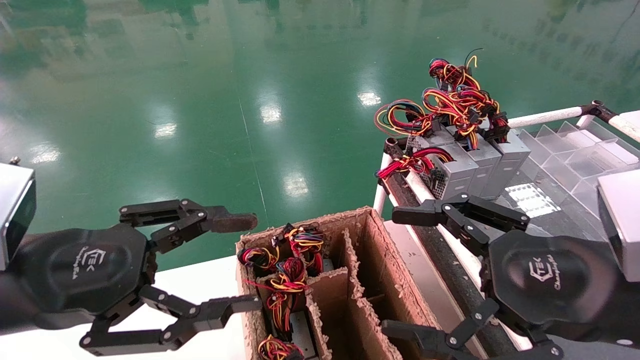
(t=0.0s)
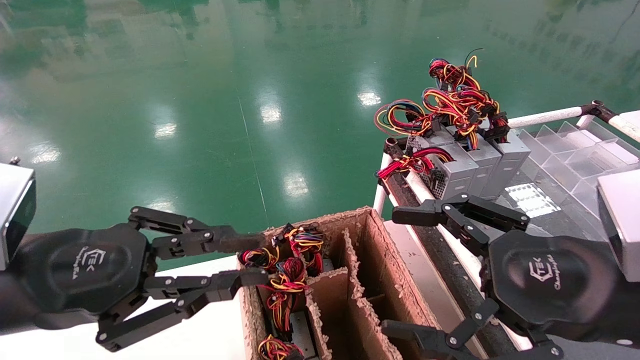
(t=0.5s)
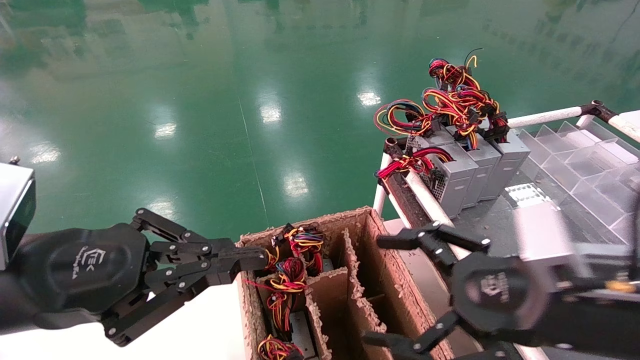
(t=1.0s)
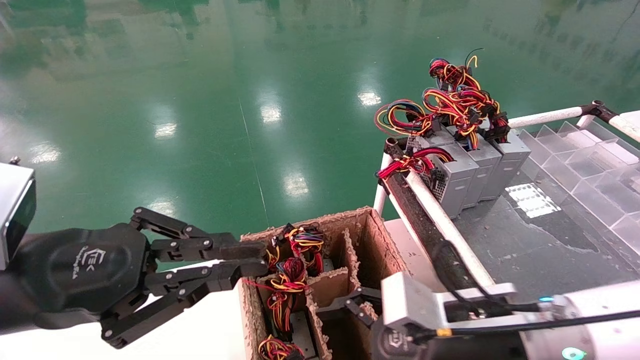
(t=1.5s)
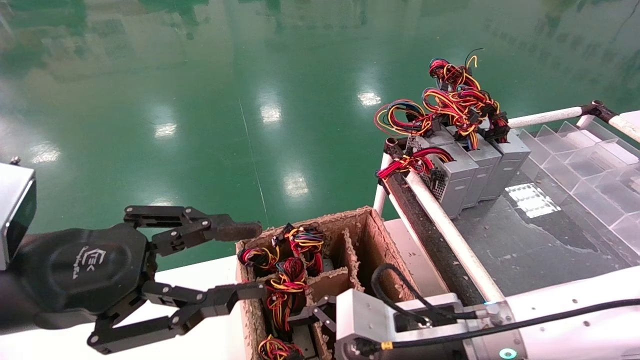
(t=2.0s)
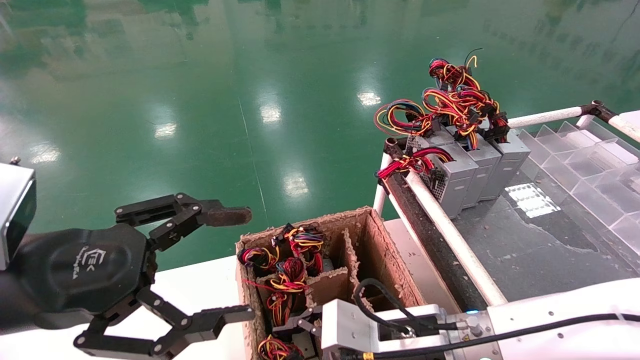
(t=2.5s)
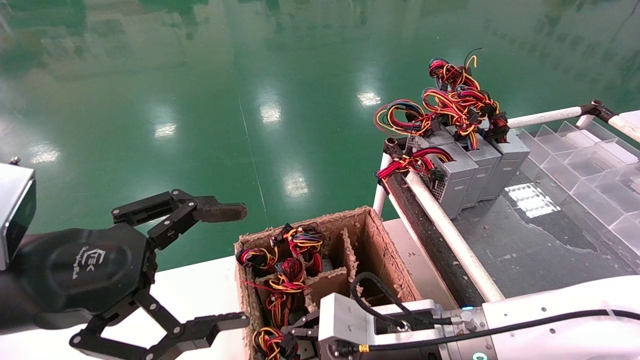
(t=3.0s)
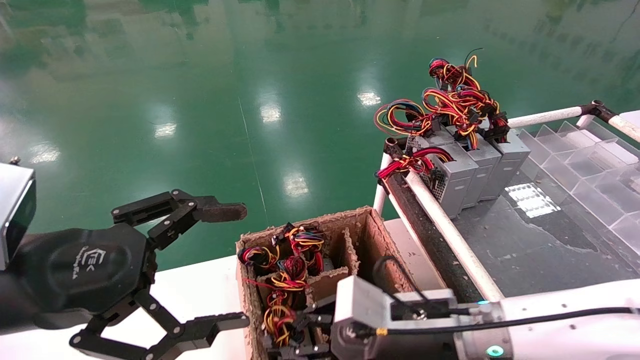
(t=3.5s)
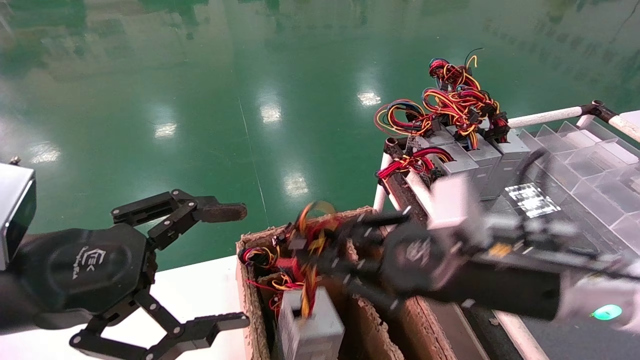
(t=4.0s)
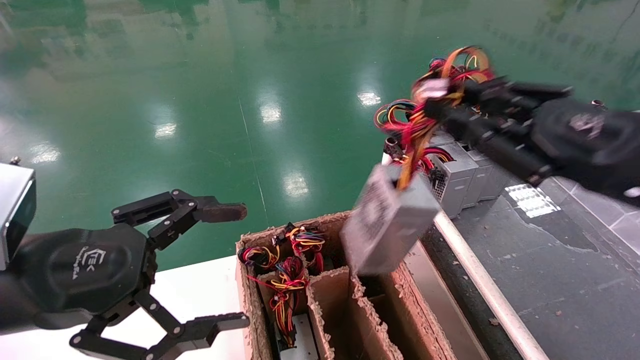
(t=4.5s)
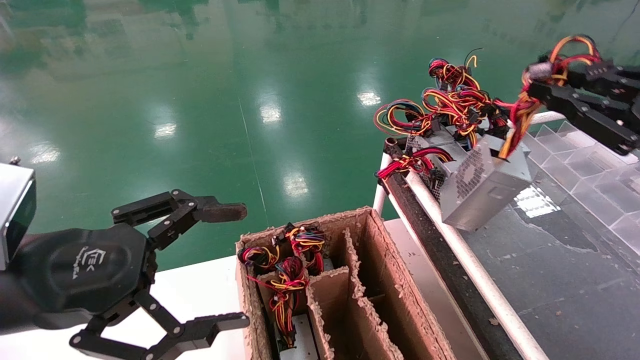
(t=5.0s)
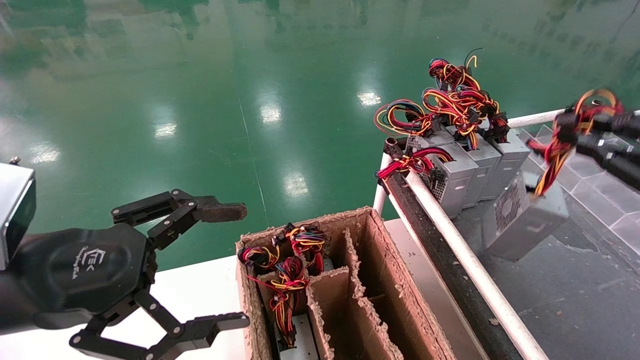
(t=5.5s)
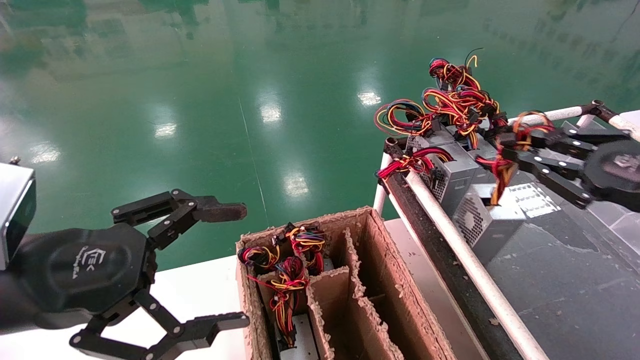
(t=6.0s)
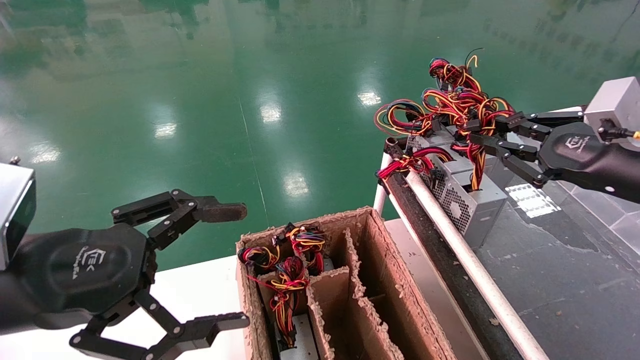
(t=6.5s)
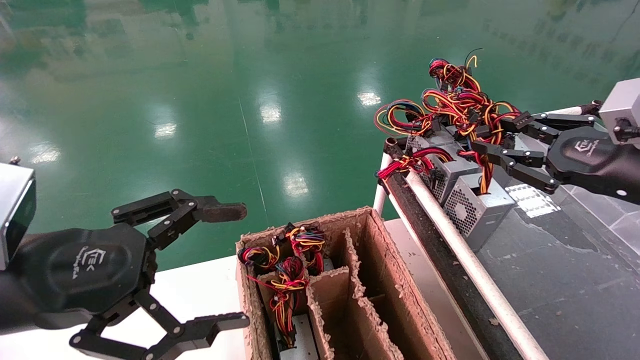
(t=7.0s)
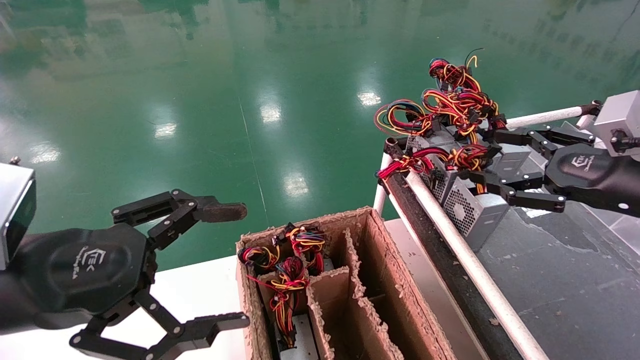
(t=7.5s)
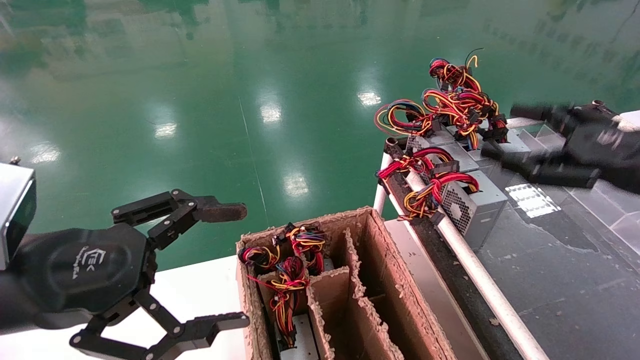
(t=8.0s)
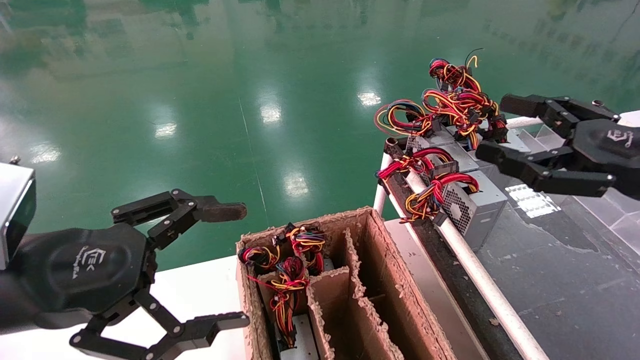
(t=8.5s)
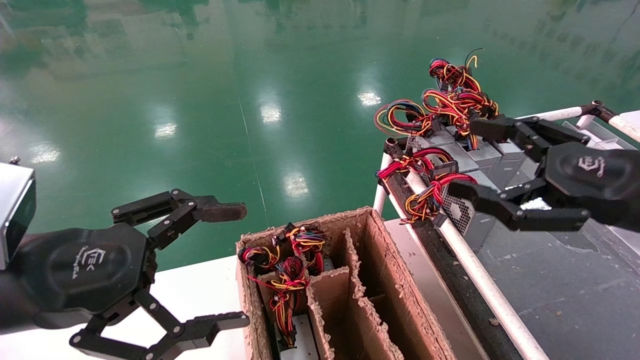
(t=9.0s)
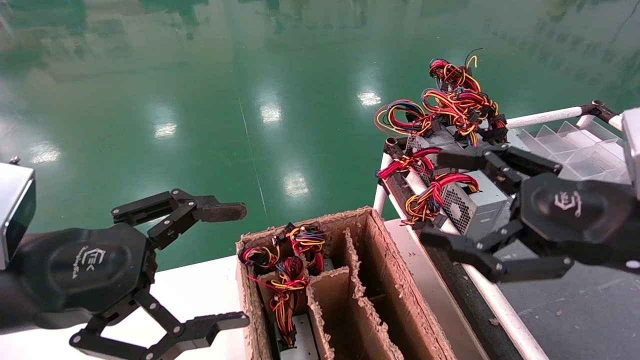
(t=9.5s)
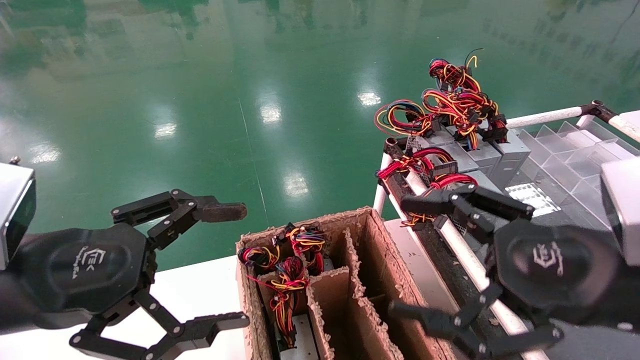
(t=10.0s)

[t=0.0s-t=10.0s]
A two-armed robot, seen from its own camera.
Step, t=1.0s to t=3.0s: Grab and lift the power supply from the large box.
Step, t=3.5s to t=6.5s: Place the power supply on the operating table.
t=0.0s to t=2.0s: The right gripper heads to the left, downward and forward, covering about 20 cm.
t=2.0s to t=4.0s: The right gripper heads upward and to the right, covering some 10 cm, and closes its fingers; the left gripper opens its fingers.
t=4.0s to t=6.0s: The right gripper heads to the right, covering some 20 cm.
t=6.0s to t=8.0s: The right gripper opens.
t=8.0s to t=10.0s: The right gripper is displaced to the left and backward by about 15 cm.

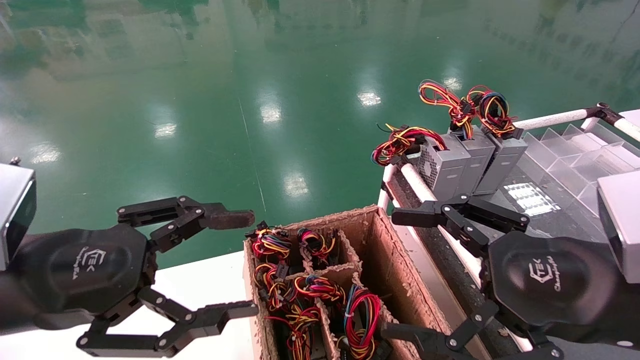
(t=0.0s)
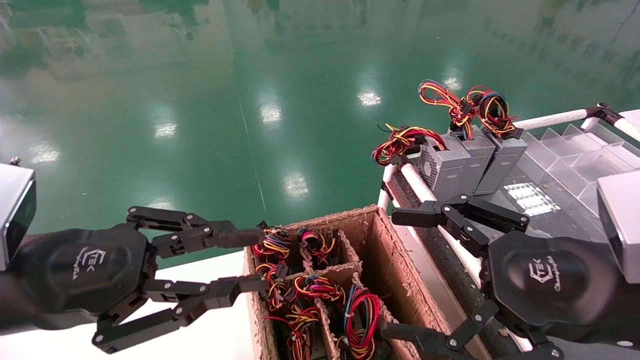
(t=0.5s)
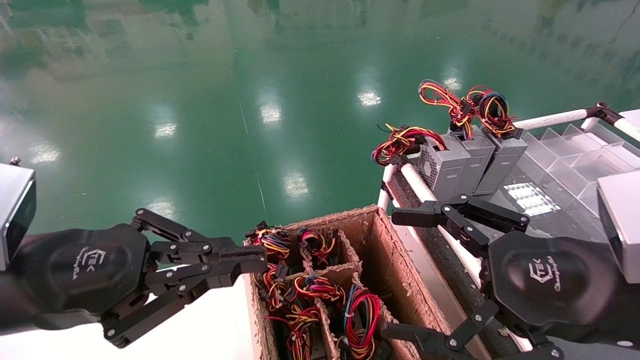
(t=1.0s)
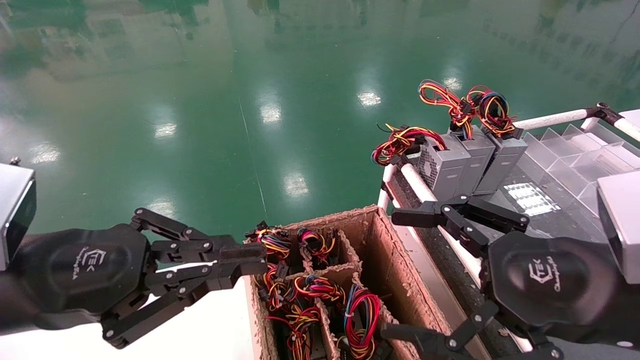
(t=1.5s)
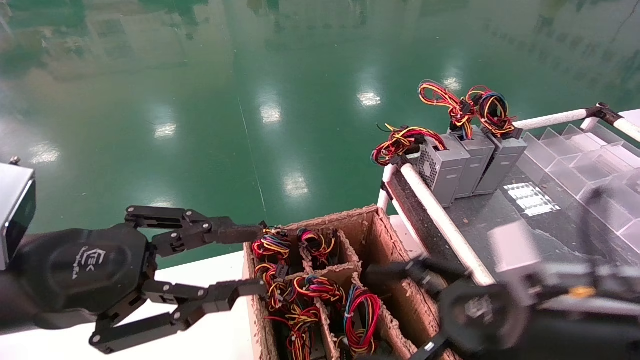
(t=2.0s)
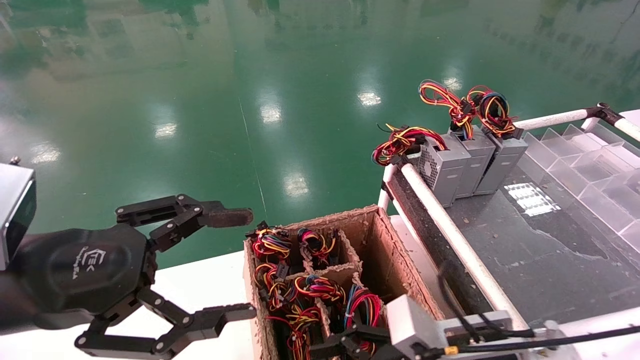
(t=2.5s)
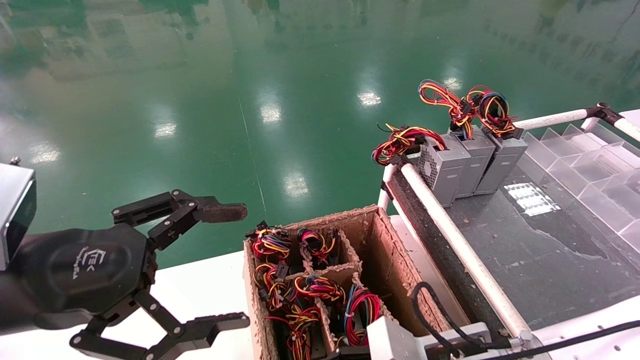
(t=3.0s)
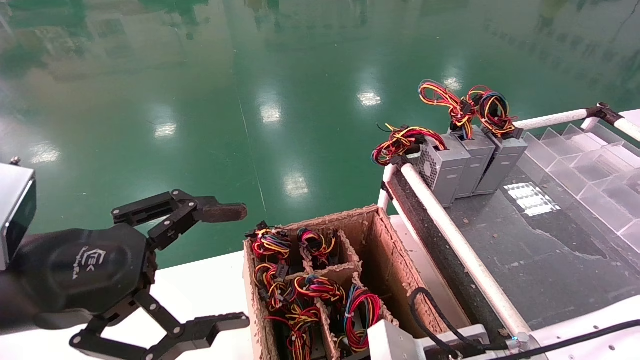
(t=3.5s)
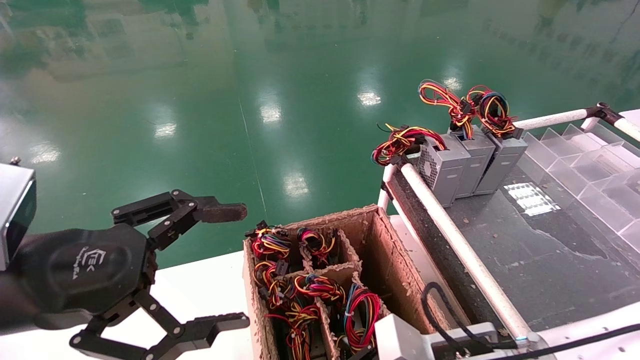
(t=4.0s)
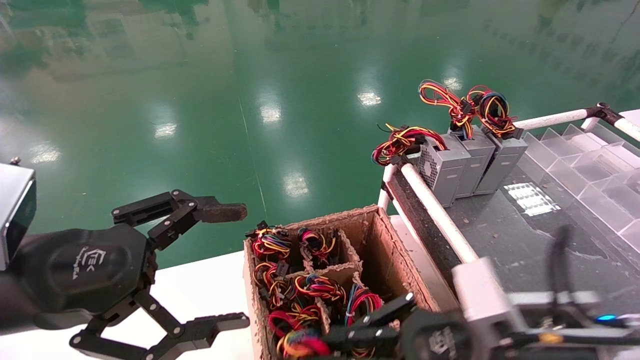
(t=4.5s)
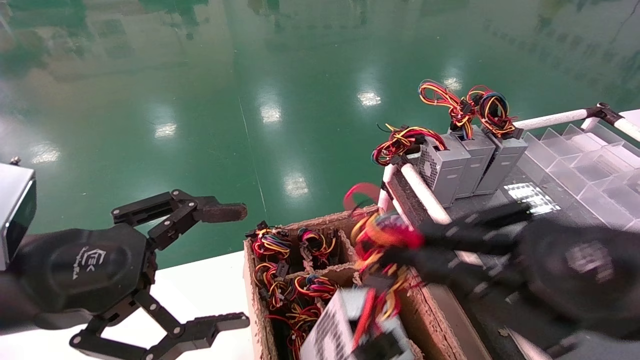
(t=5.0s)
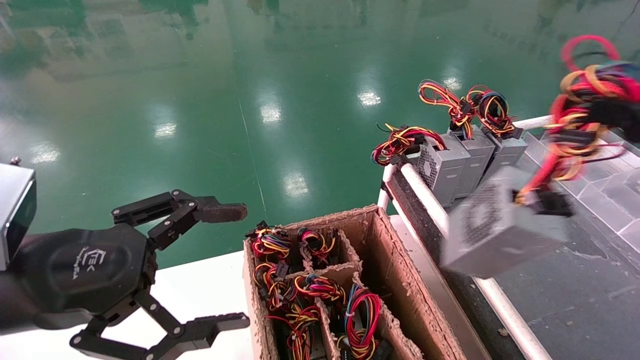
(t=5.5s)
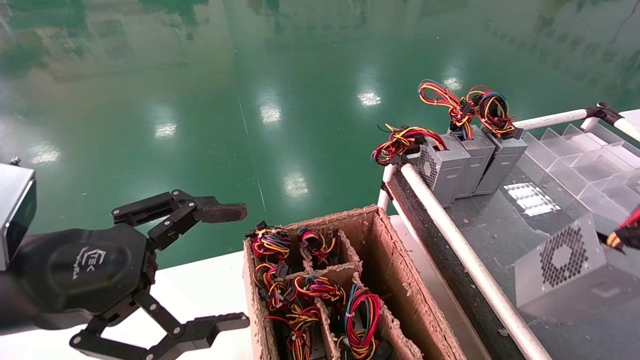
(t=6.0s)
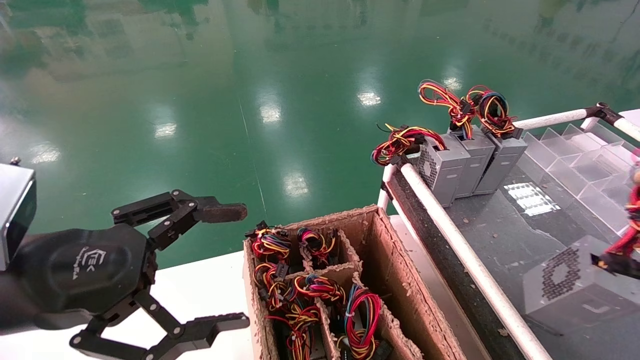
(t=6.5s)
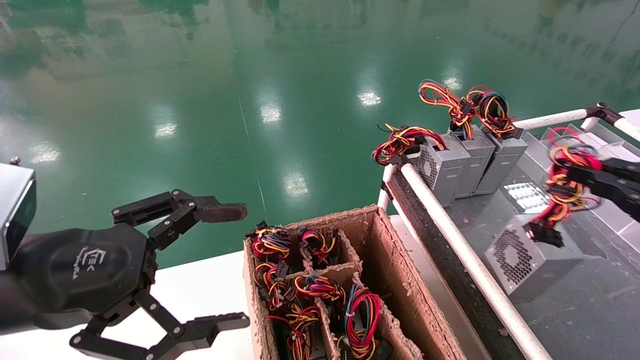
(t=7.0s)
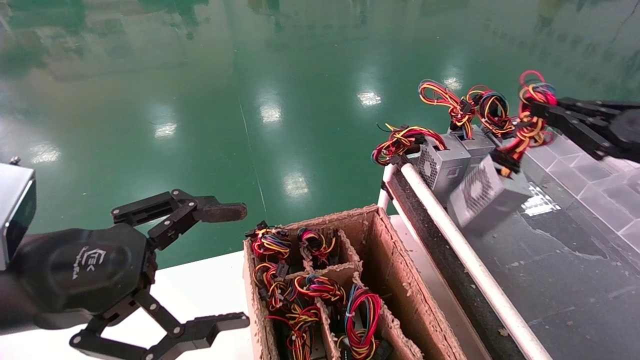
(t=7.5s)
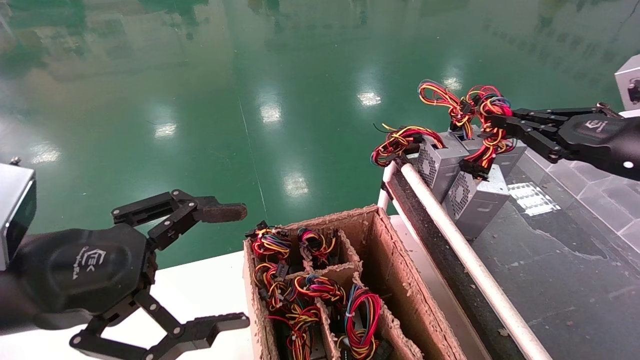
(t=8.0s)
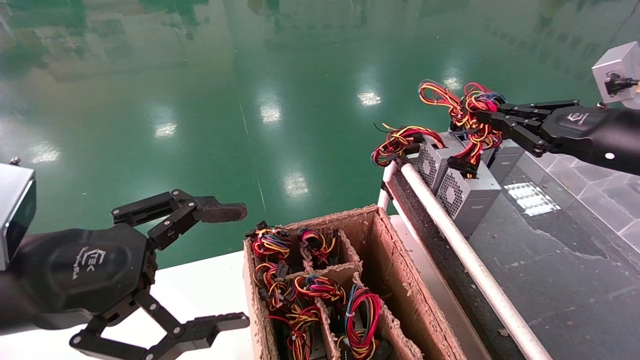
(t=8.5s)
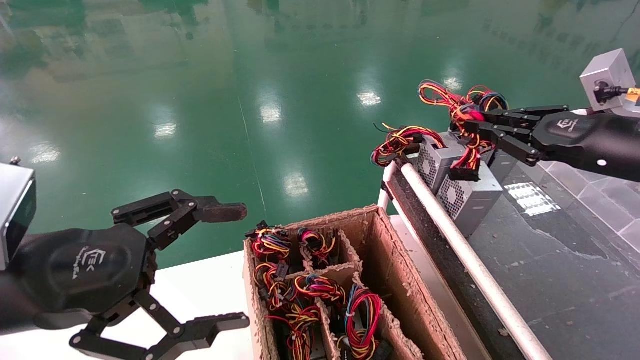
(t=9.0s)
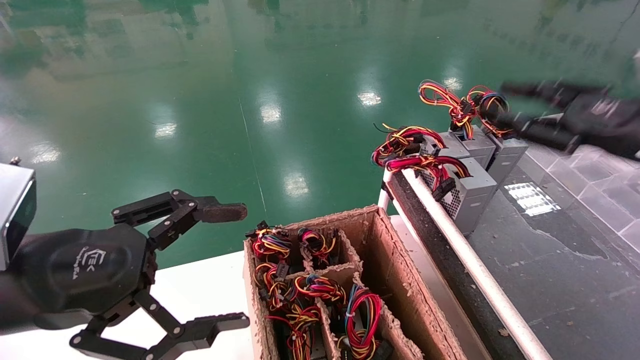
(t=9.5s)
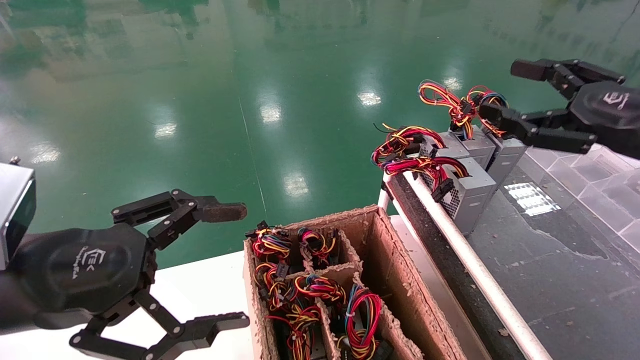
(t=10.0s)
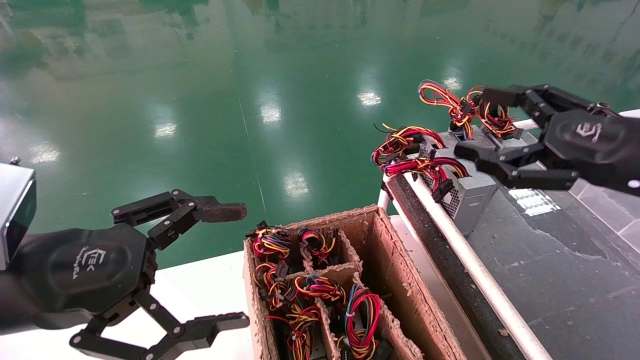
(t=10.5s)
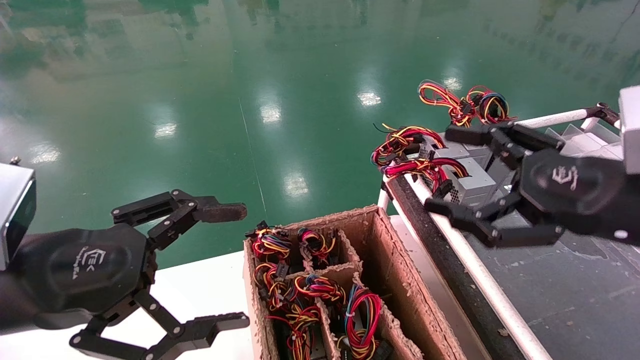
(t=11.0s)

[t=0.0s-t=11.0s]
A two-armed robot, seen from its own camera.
Step, t=1.0s to t=4.0s: Grab and lift the power supply from the large box.
Step, t=4.5s to t=9.0s: Place the power supply on the operating table.
t=0.0s to t=2.0s: The right gripper goes about 5 cm downward. The left gripper closes its fingers.
t=2.0s to t=3.5s: The left gripper opens up; the right gripper heads downward and to the left, covering approximately 10 cm, and closes up.
t=3.5s to t=5.5s: The right gripper travels upward, to the right and backward by roughly 35 cm, and closes its fingers.
t=5.5s to t=7.5s: The right gripper moves forward, about 15 cm.
t=7.5s to t=9.0s: The right gripper changes place by some 5 cm.
t=9.0s to t=11.0s: The right gripper goes approximately 10 cm backward and to the left, and opens its fingers.
